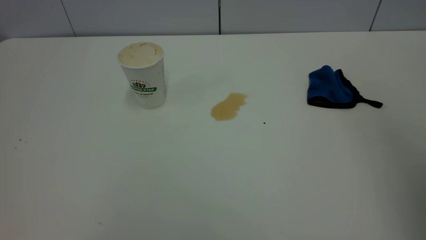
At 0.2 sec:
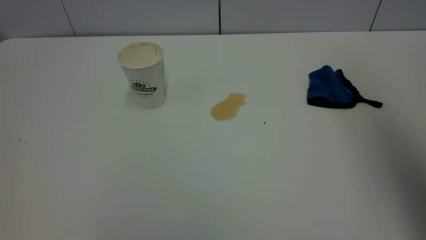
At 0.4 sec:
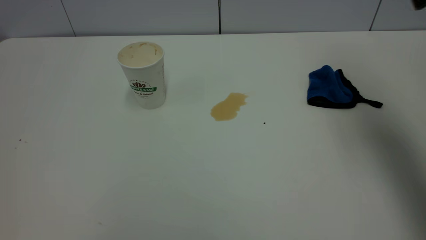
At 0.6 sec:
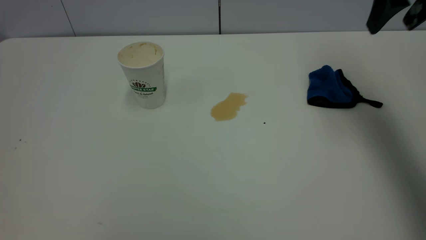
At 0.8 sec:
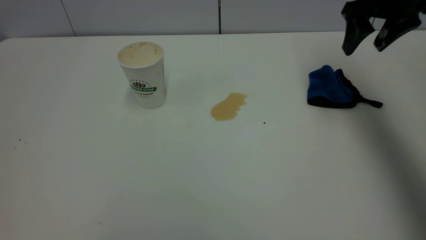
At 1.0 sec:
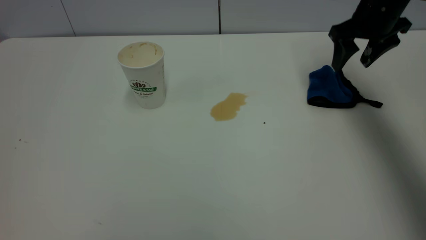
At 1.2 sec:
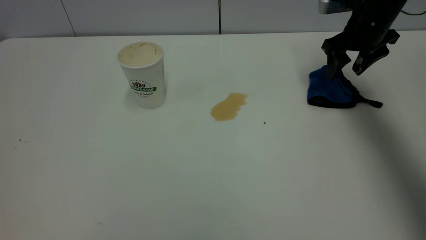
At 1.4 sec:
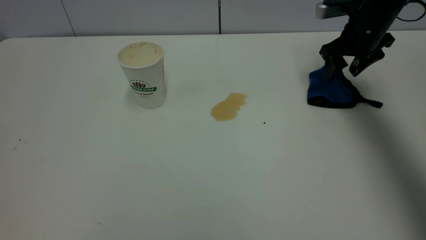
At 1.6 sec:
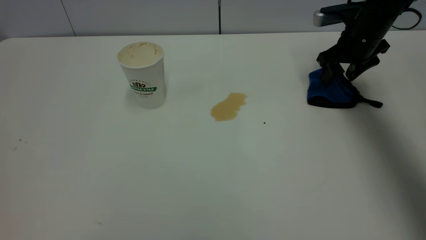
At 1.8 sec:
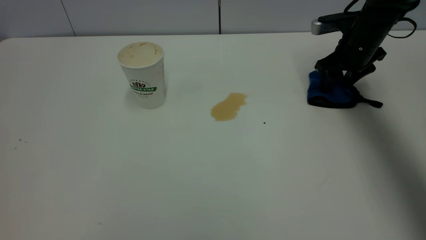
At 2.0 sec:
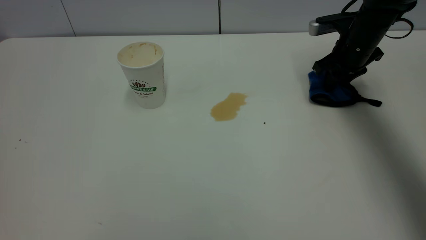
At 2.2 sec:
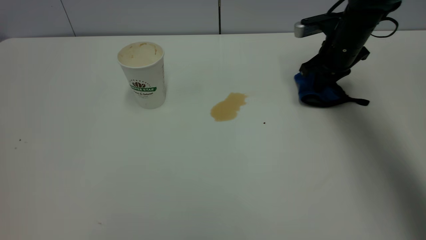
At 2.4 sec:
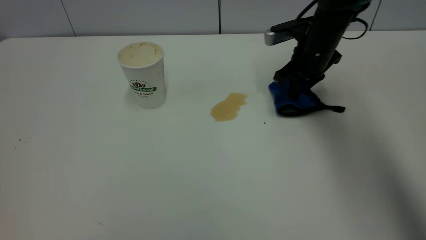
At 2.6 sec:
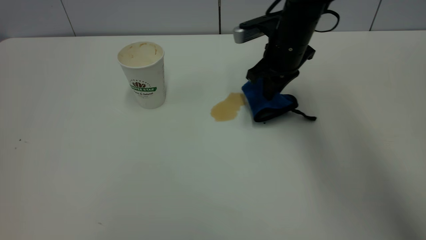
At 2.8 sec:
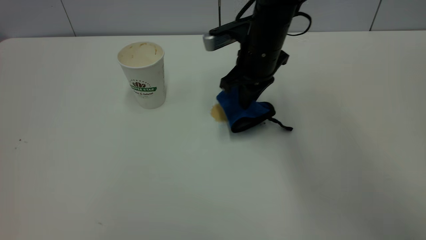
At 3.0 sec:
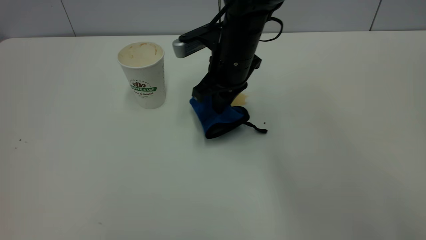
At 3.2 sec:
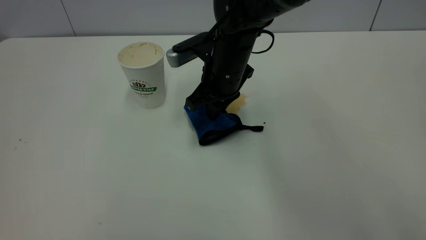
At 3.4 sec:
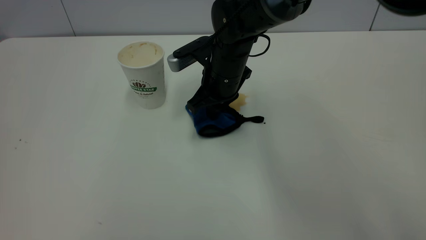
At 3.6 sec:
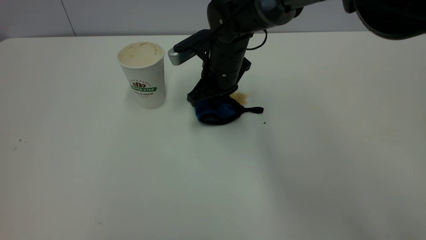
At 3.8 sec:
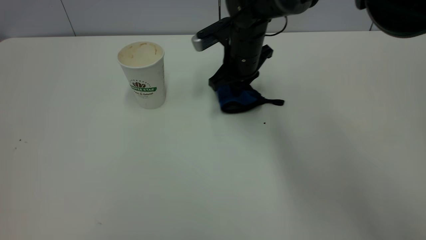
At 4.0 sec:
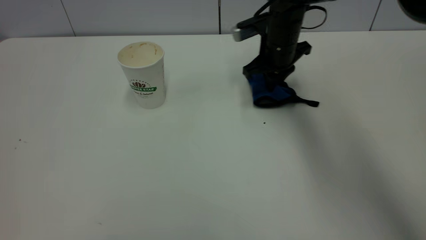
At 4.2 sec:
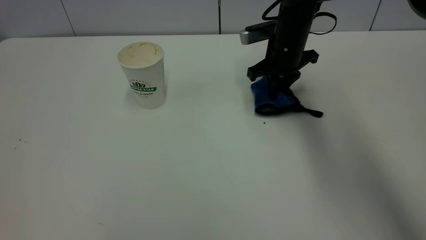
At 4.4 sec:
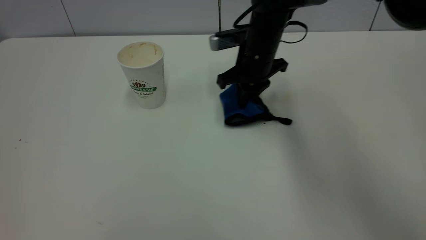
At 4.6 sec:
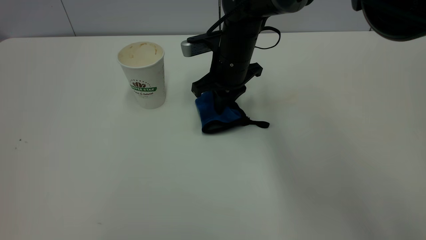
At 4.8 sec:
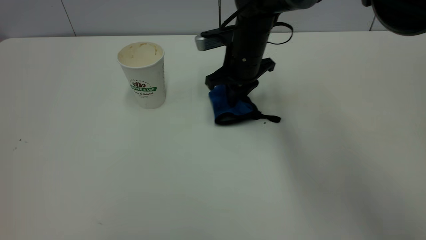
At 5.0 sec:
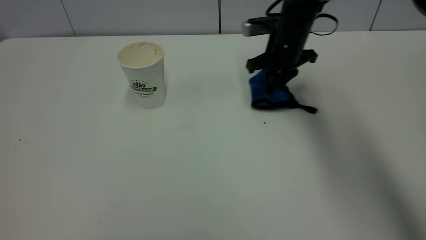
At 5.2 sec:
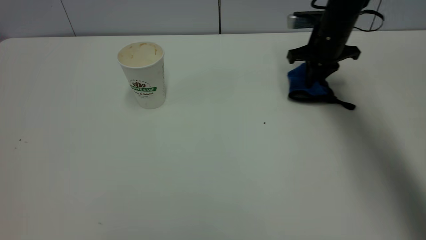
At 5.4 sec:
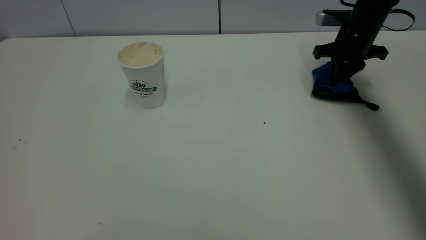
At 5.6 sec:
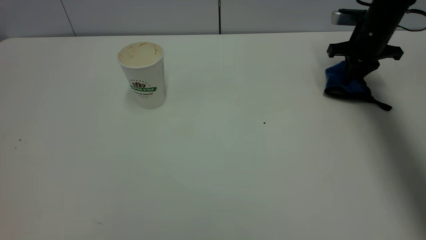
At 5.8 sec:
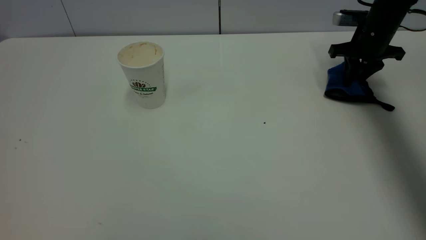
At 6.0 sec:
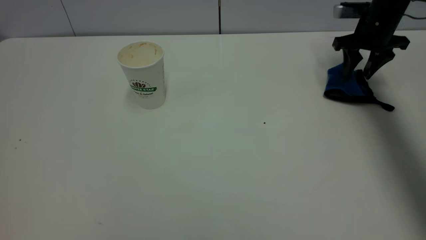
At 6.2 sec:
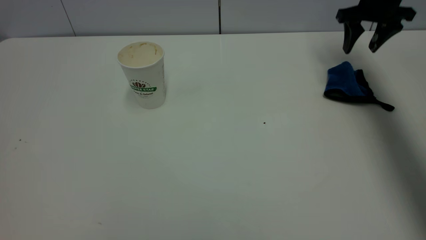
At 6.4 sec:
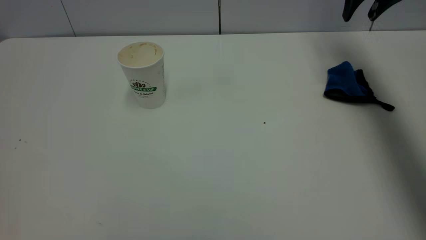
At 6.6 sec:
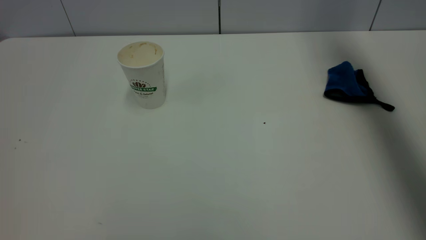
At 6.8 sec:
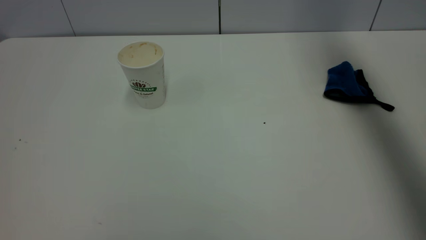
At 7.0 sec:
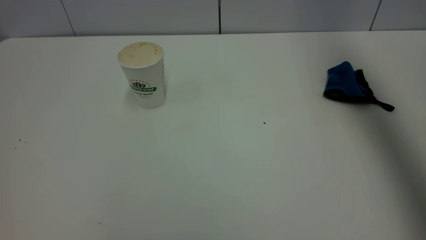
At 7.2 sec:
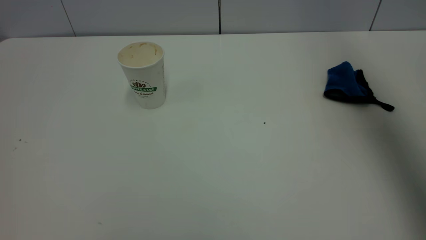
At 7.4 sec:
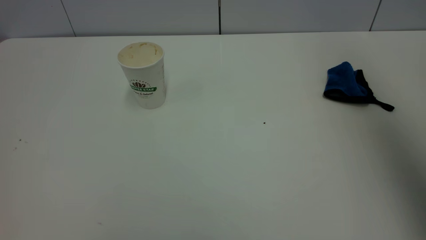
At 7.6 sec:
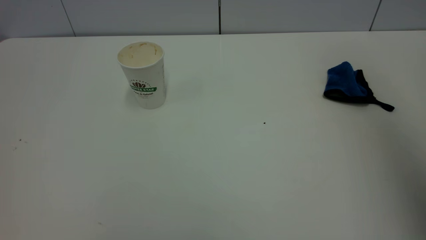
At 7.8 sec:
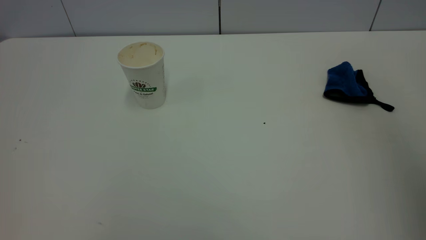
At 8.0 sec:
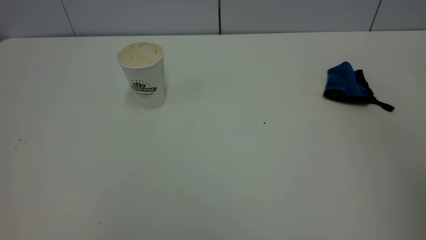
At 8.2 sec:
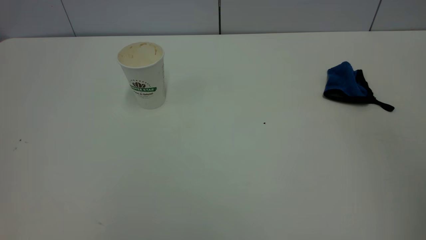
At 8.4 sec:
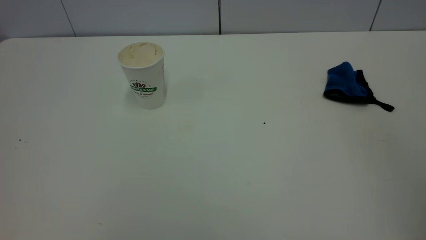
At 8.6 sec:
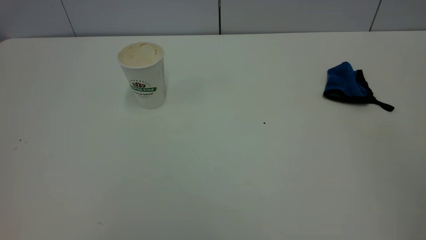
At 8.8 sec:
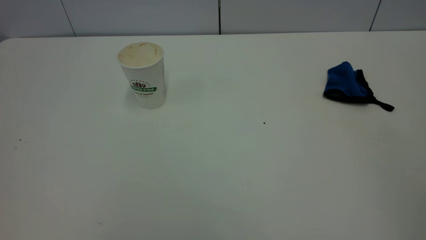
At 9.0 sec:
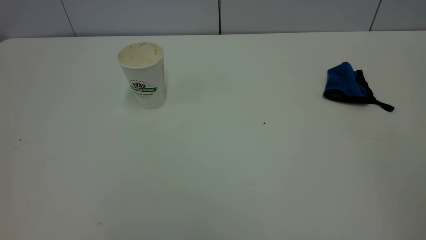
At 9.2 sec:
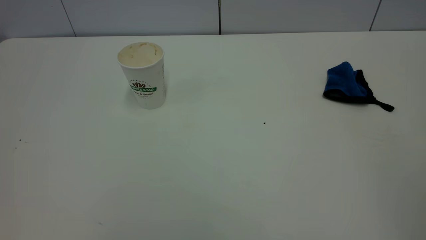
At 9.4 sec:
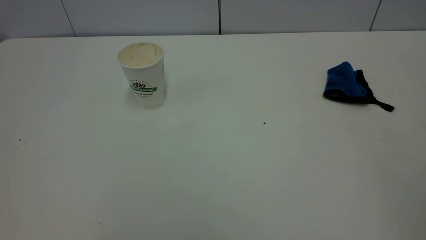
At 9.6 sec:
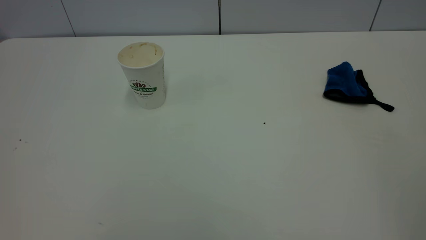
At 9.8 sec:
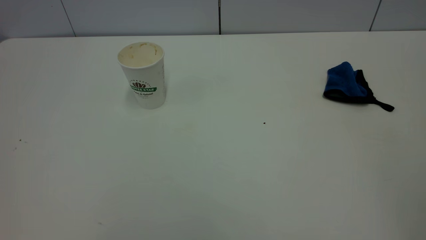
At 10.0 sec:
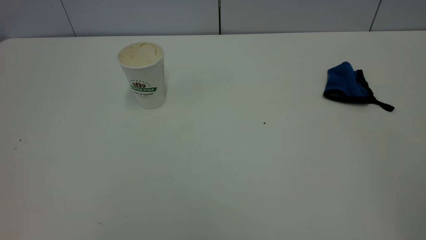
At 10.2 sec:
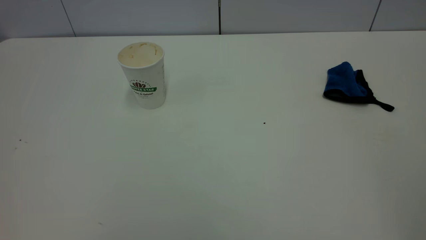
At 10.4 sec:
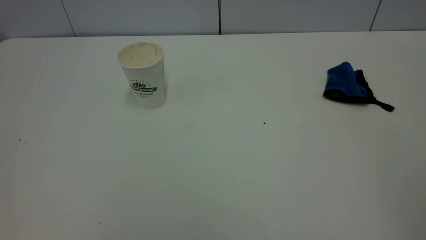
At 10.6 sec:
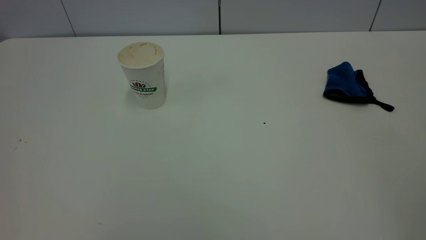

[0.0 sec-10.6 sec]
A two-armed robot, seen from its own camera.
Task of the whole recording: the left gripper pick up the fallen cup and place it upright, the right gripper grasp the blue rag and wipe the tea stain on the table, the right gripper put the blue rag back in its original position.
Step, 0.0 sec to 6.0 sec: Wipe the stains off the table with a rag.
0.0 sec to 1.6 sec: The right gripper shifts some 40 cm forward and downward.
1.6 sec to 3.0 sec: The right gripper travels to the left by roughly 25 cm, and closes.
3.0 sec to 4.6 sec: The right gripper reaches about 10 cm to the right, then returns.
4.6 sec to 6.0 sec: The right gripper shifts approximately 30 cm to the right, and opens up.
6.0 sec to 7.6 sec: The right gripper travels backward and upward by some 50 cm.
7.6 sec to 9.0 sec: The right gripper moves backward and downward, roughly 25 cm.
